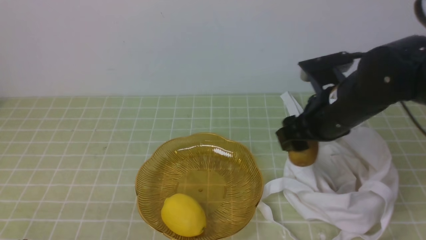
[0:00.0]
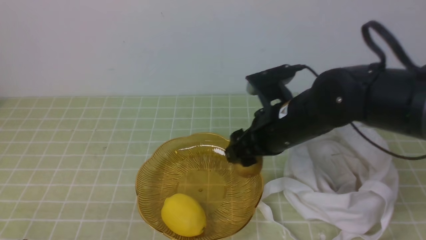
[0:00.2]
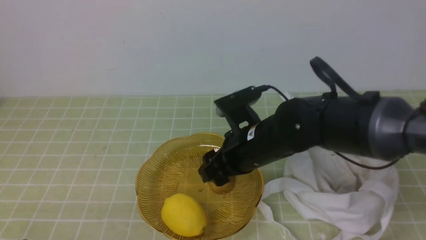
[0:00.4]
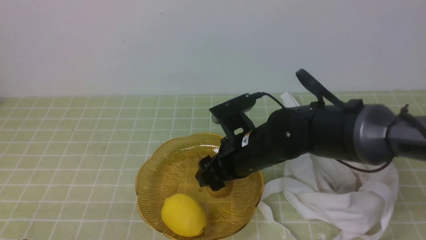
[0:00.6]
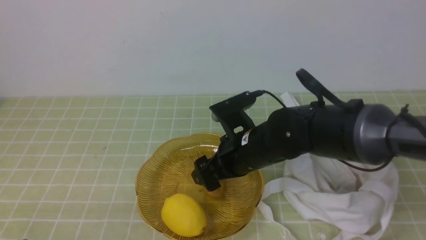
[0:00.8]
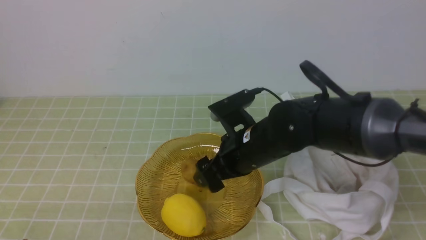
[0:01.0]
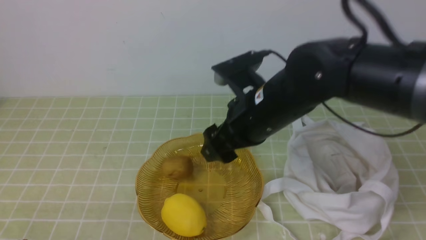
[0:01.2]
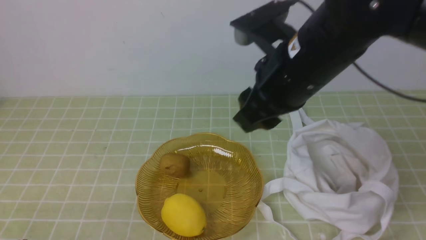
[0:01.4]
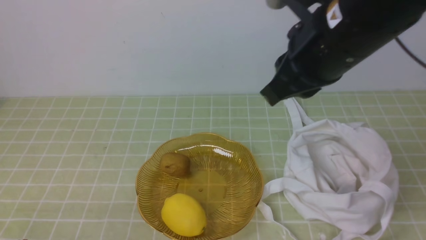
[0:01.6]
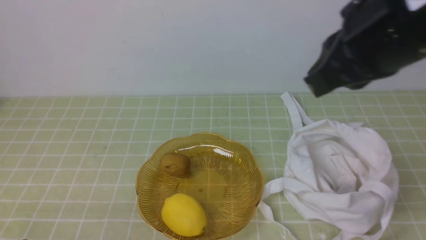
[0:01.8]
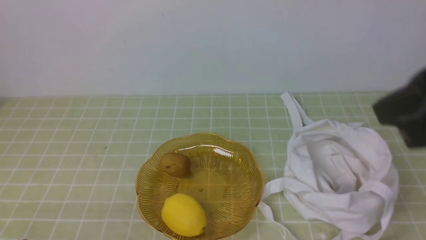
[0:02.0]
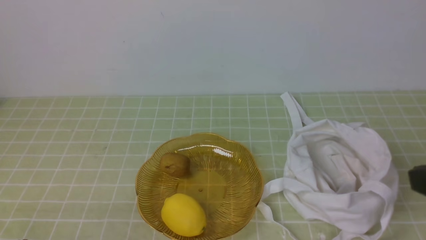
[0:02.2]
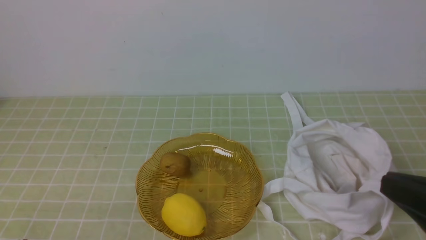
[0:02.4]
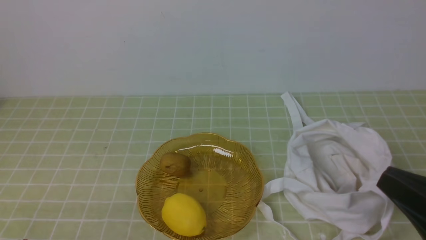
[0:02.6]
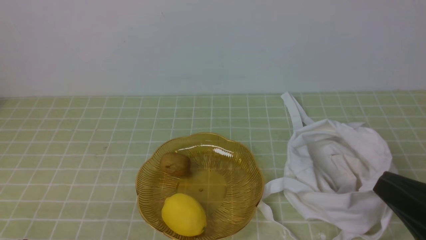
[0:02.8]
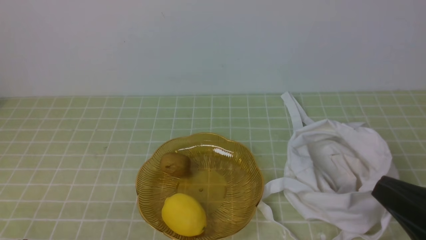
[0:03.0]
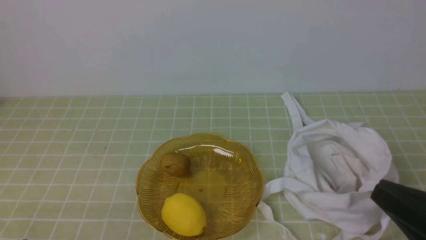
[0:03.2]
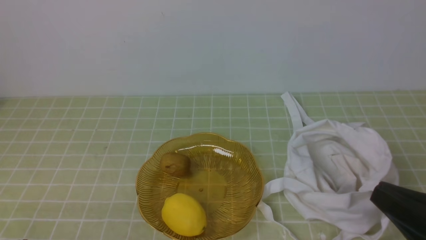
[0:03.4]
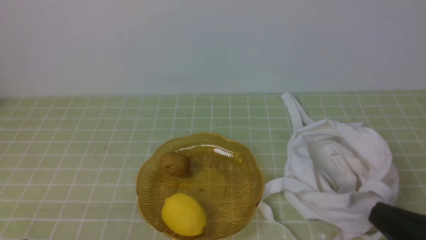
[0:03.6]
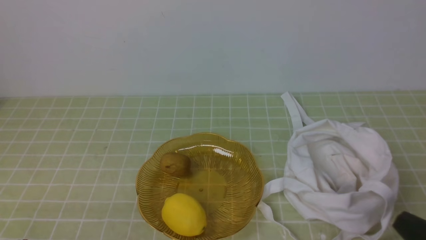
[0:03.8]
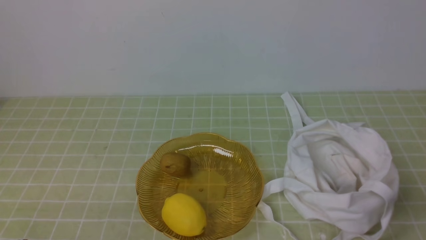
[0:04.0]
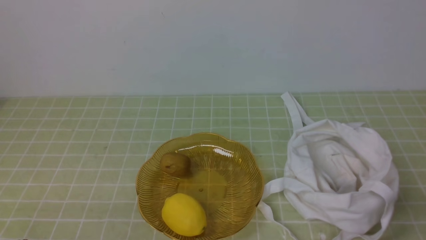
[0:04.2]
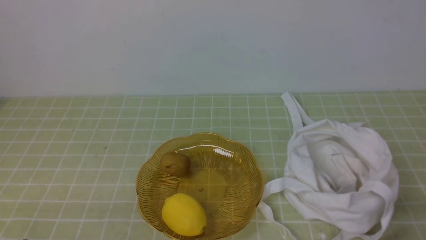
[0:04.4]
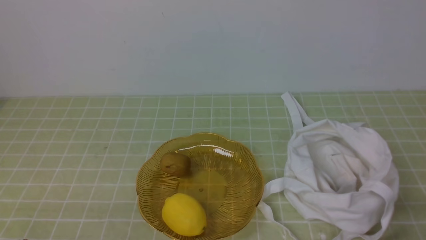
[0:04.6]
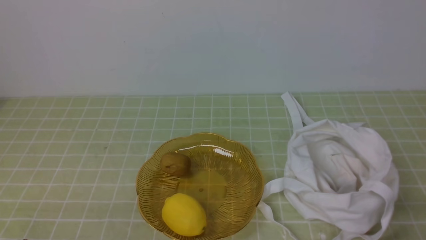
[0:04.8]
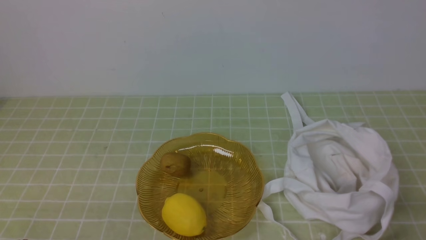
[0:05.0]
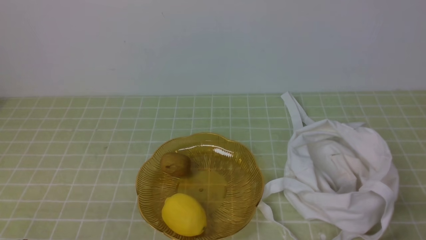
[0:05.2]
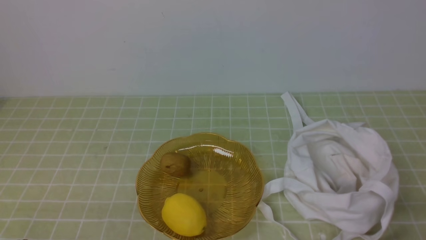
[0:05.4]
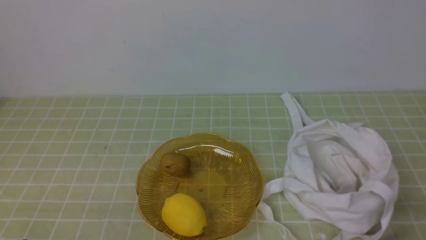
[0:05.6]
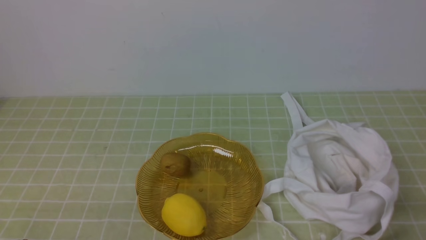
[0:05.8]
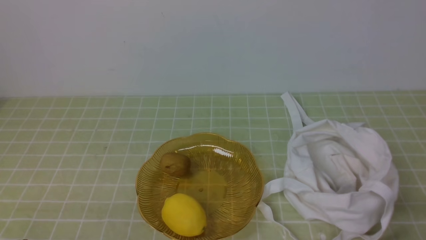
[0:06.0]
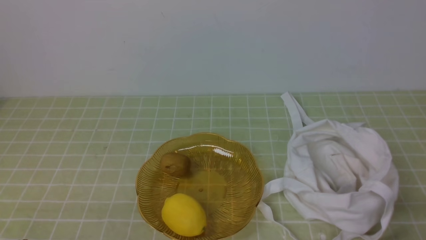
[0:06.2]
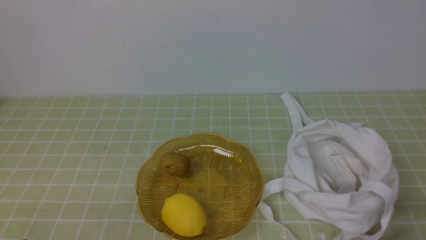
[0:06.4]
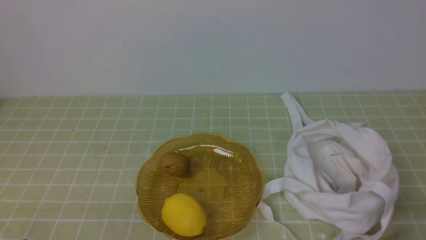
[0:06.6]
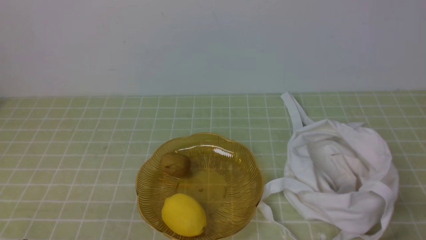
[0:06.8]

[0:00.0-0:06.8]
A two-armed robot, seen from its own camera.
Step, 0:00.0 to 0:01.0: use the right arm to put the kiwi into the empty plate on the left.
0:00.0 to 0:01.4: The right gripper goes some 10 cm upward.
0:01.4 to 0:02.8: The right gripper moves backward, to the right and downward, roughly 25 cm, and closes its fingers.
0:02.8 to 0:04.0: The right gripper heads downward, covering approximately 10 cm.
0:05.4 to 0:06.8: Both grippers stay about where they are.

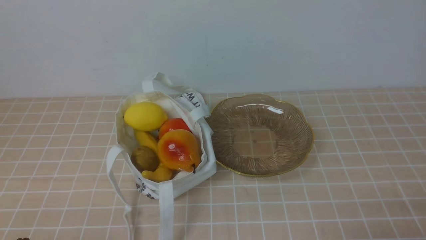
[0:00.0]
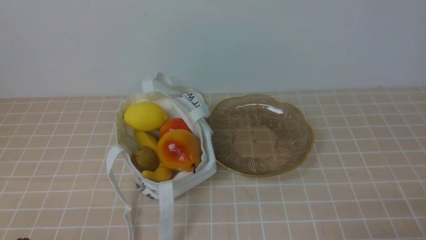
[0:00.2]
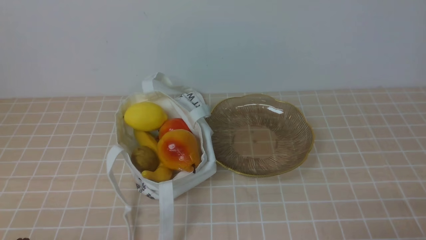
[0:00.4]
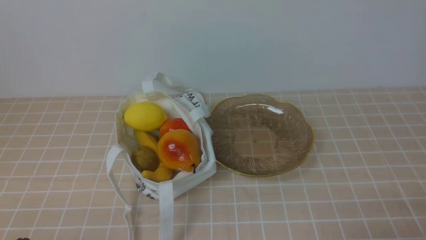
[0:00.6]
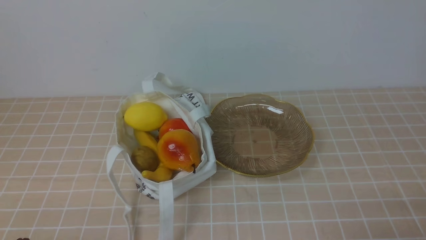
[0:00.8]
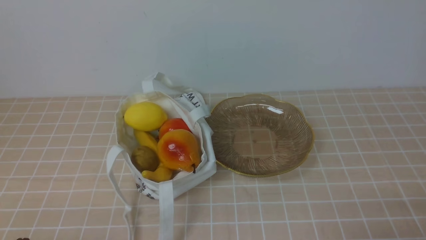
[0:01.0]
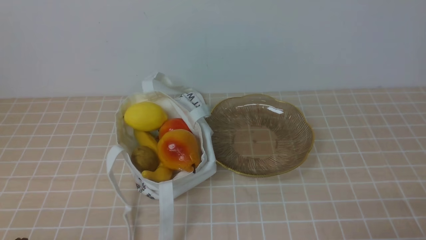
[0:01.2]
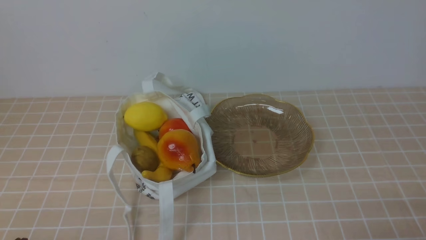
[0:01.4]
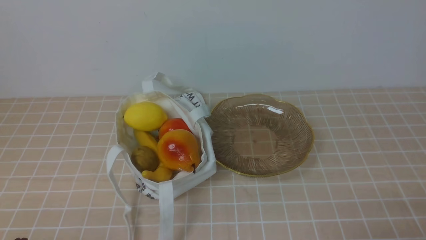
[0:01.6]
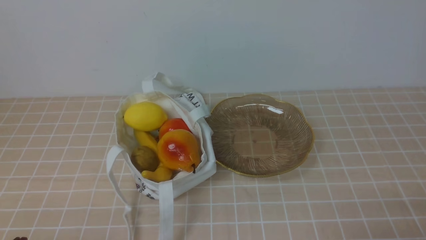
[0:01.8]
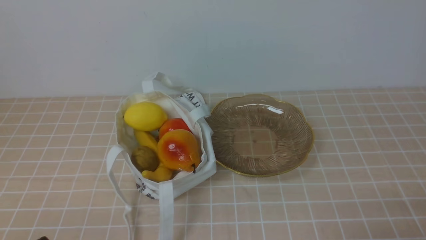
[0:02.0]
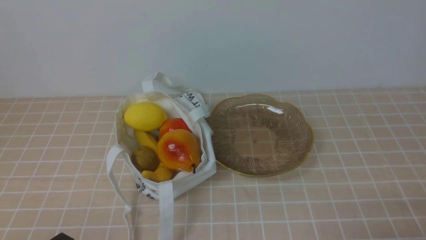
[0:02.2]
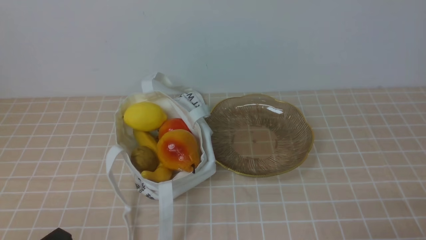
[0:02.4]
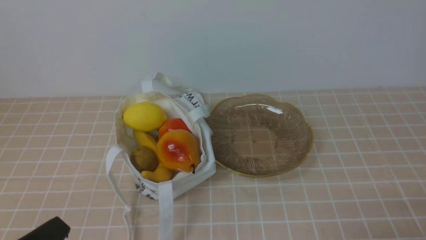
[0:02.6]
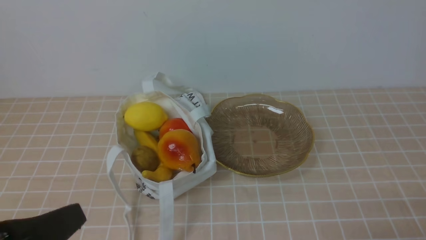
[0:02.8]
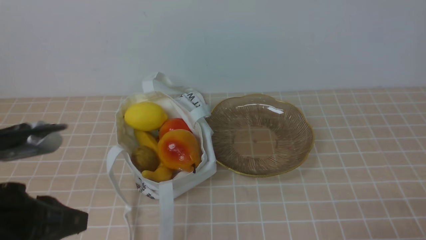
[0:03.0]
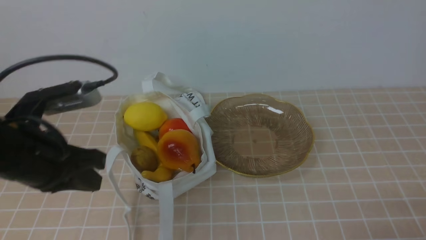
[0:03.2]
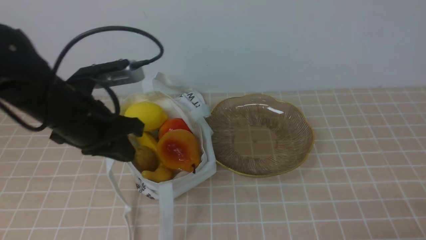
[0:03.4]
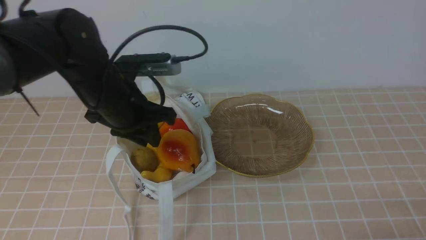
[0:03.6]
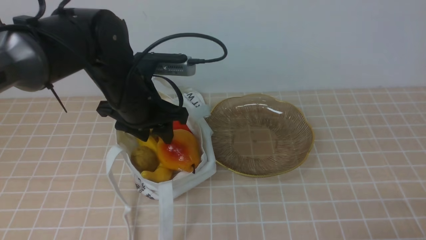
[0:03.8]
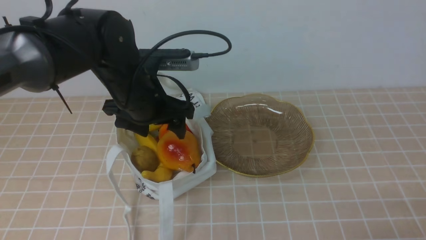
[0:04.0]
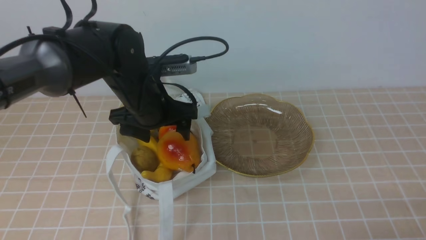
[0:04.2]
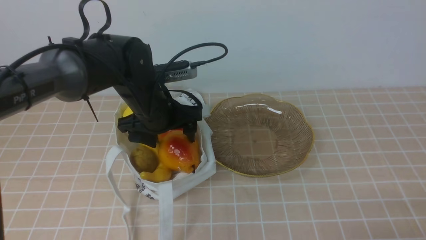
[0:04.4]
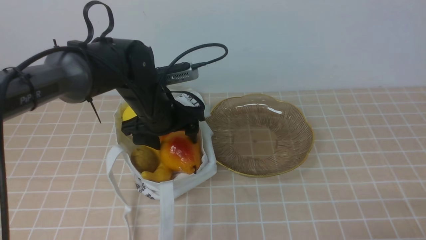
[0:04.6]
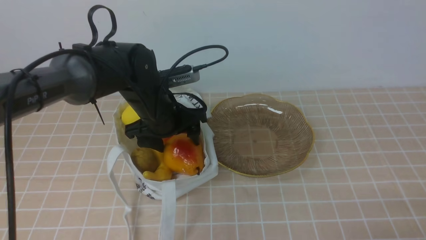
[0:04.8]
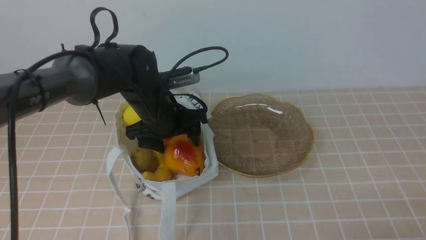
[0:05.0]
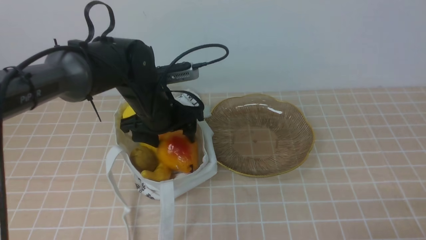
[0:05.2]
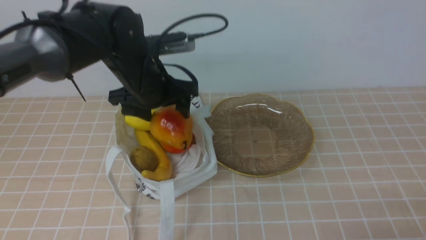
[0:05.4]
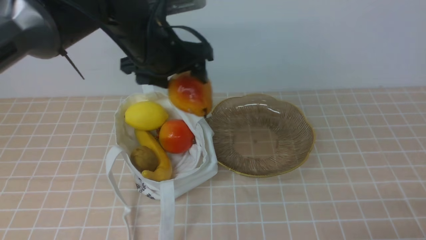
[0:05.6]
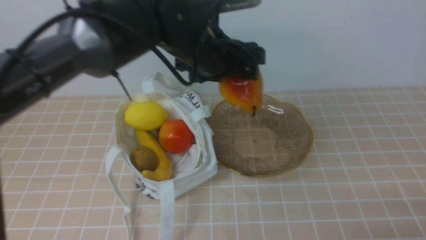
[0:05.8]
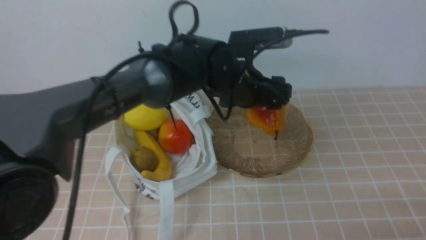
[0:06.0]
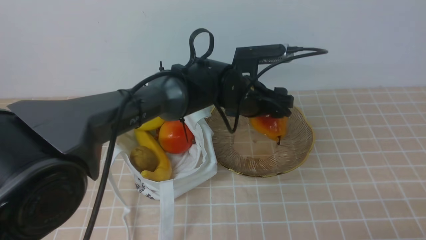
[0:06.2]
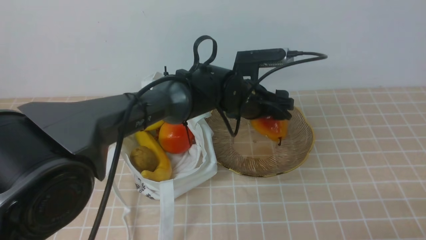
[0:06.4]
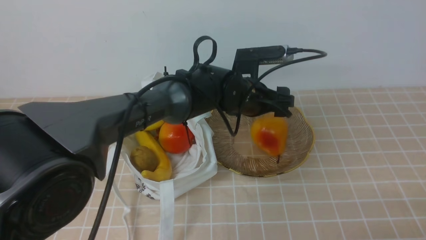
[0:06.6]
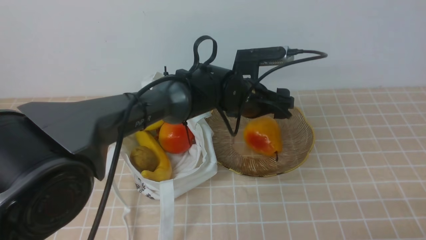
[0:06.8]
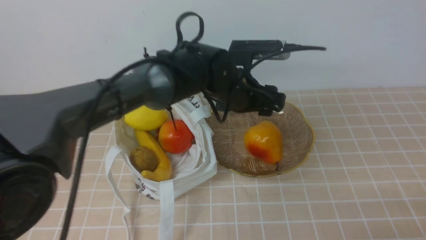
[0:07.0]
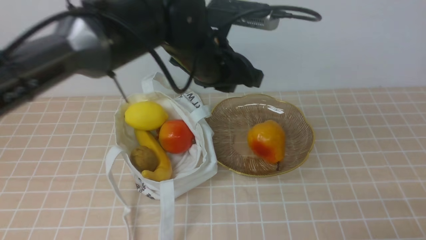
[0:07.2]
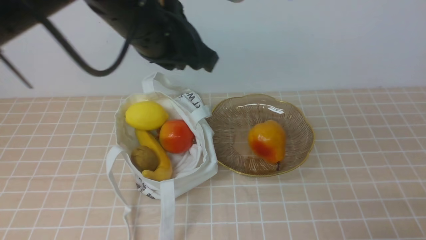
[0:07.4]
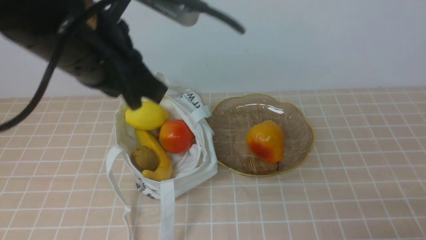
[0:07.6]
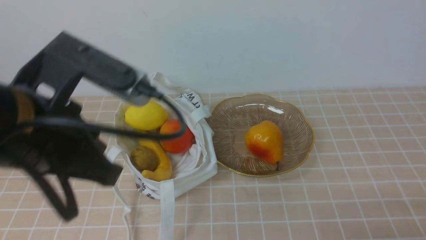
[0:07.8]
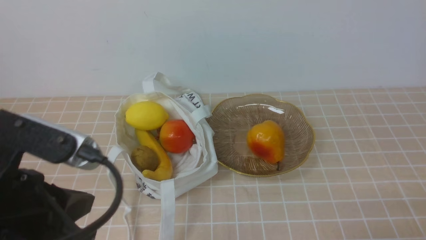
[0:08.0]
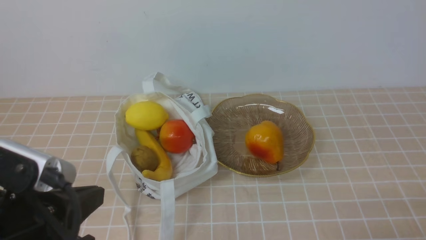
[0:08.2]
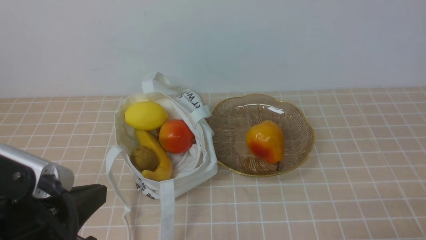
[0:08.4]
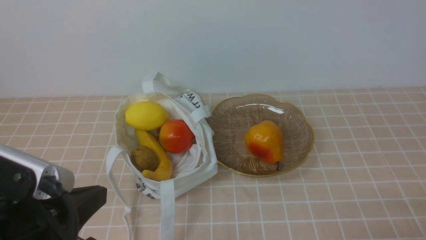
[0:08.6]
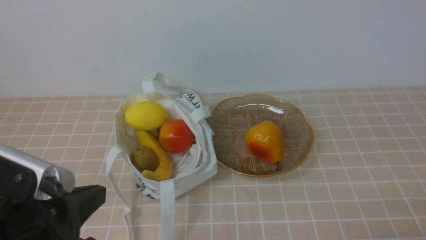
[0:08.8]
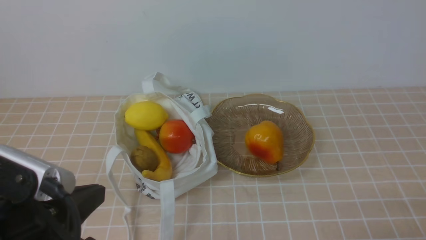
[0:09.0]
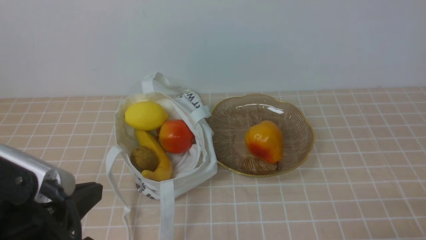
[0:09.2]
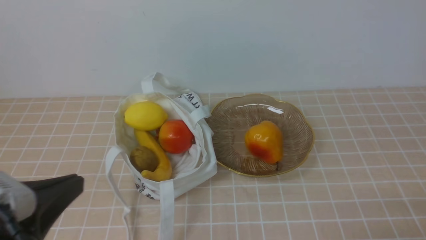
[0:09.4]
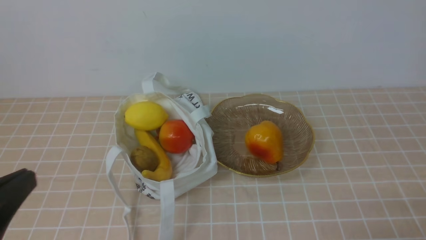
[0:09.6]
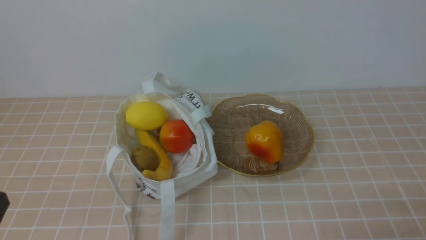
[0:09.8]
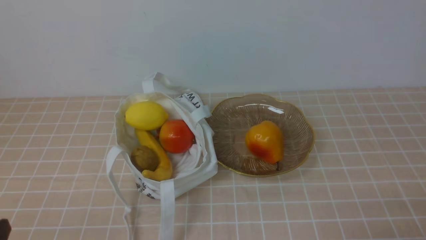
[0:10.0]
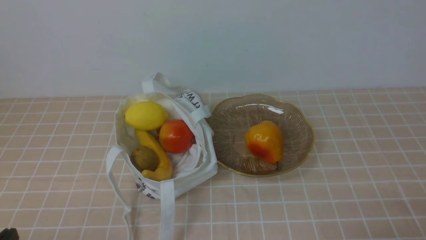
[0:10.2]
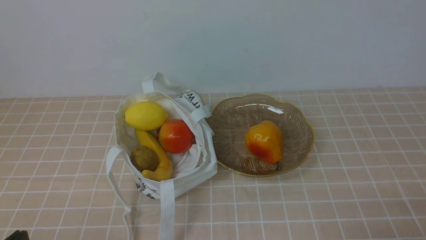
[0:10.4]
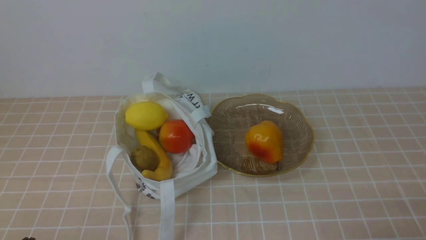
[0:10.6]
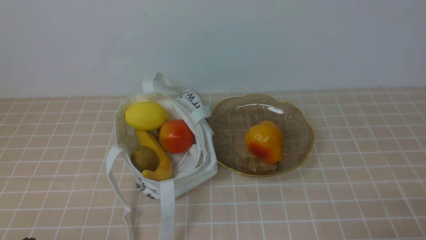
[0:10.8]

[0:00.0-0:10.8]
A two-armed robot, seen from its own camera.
Step, 0:00.0 to 0:05.0: use the left arm to grab an apple from the bag.
Step, 0:05.4 to 0:06.8: use the left arm to put the apple into the empty plate on the right.
0:01.6 to 0:03.0: The left gripper heads upward and forward, covering roughly 15 cm.
0:03.0 to 0:04.6: The left gripper shifts roughly 30 cm forward and to the right, and opens its fingers.
0:04.6 to 0:06.2: The left gripper shifts some 15 cm to the right.
0:06.2 to 0:07.8: The left gripper shifts about 30 cm backward, to the left and upward, and closes.
0:07.8 to 0:09.2: The left gripper is displaced backward and downward by some 15 cm.
0:09.2 to 0:10.8: The left gripper travels downward, to the left and backward by some 15 cm.
